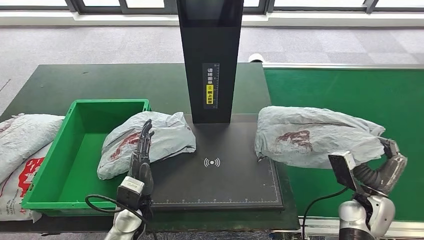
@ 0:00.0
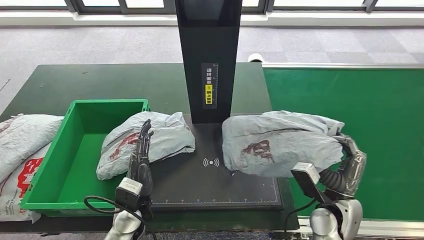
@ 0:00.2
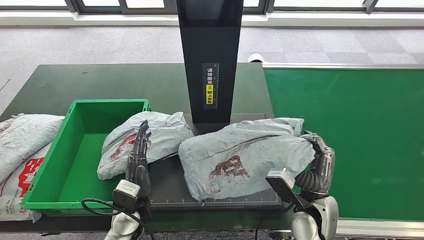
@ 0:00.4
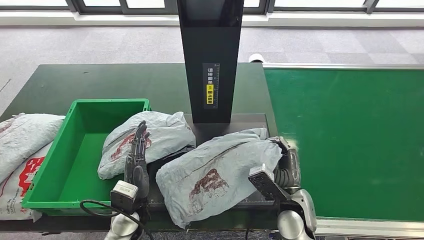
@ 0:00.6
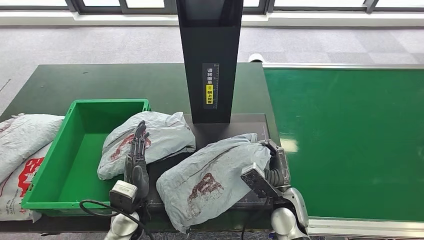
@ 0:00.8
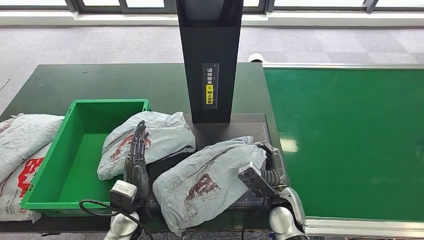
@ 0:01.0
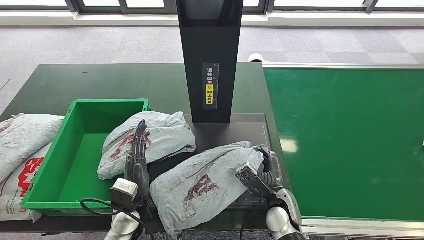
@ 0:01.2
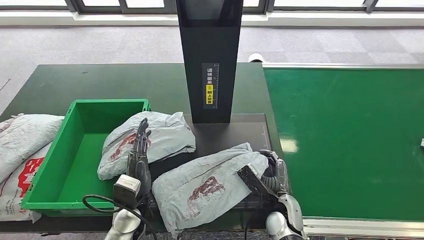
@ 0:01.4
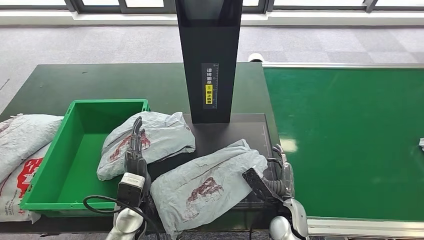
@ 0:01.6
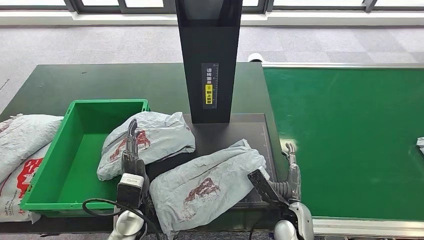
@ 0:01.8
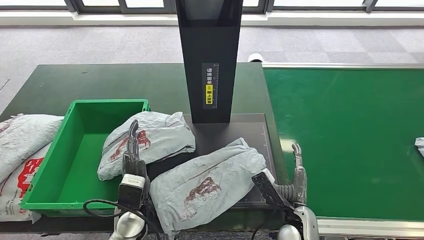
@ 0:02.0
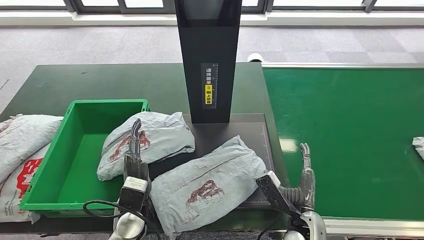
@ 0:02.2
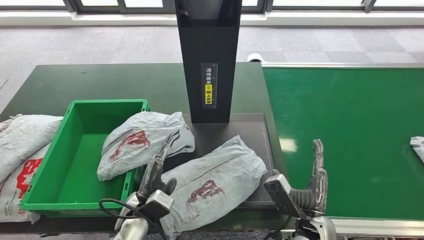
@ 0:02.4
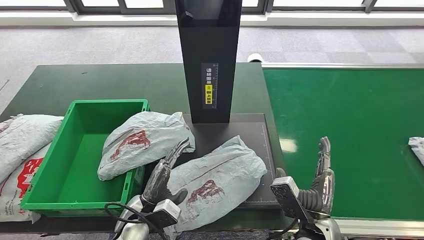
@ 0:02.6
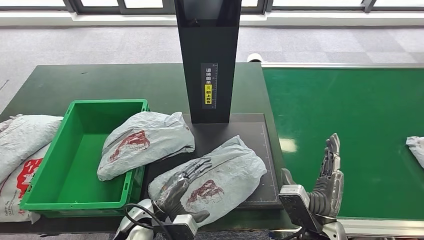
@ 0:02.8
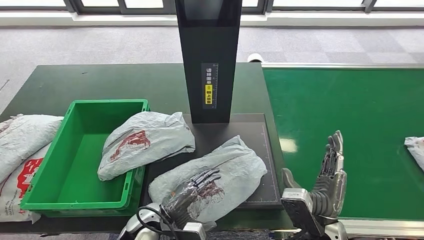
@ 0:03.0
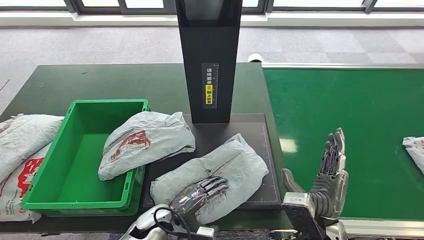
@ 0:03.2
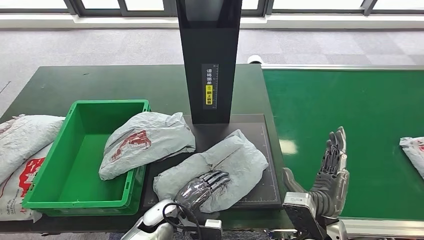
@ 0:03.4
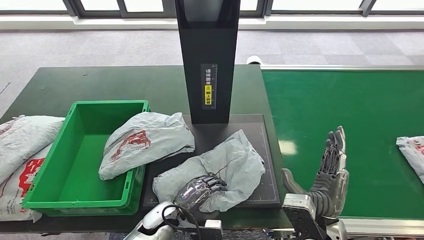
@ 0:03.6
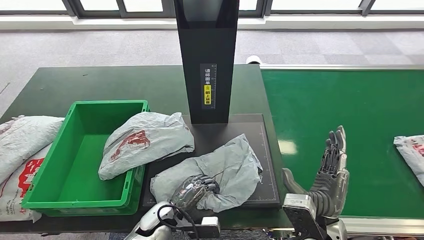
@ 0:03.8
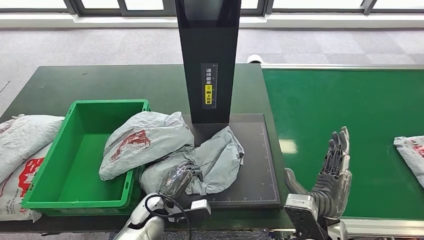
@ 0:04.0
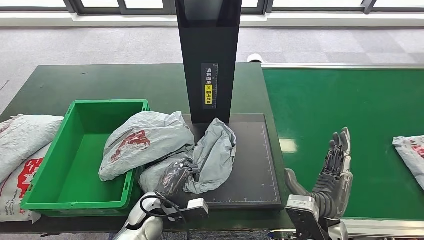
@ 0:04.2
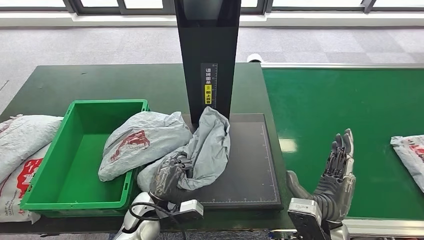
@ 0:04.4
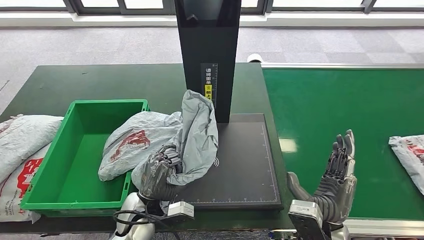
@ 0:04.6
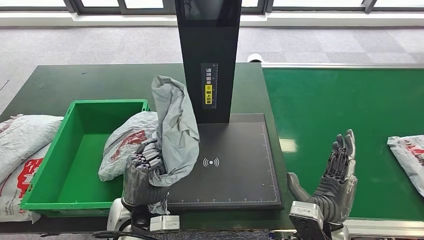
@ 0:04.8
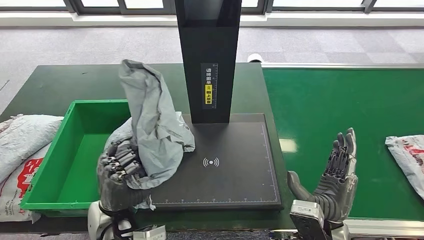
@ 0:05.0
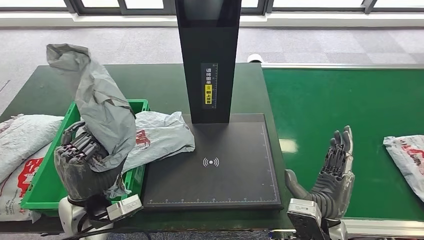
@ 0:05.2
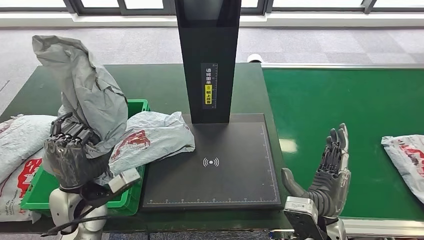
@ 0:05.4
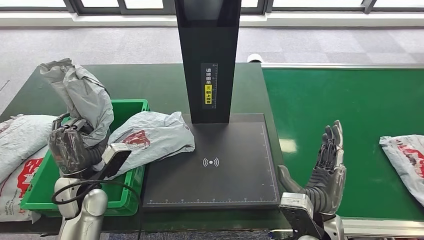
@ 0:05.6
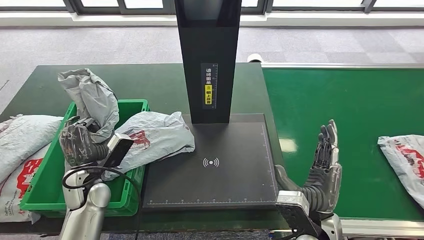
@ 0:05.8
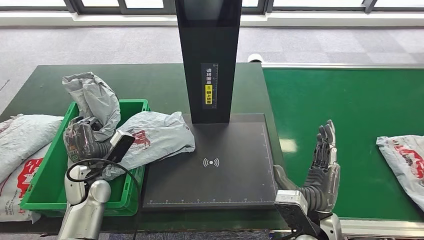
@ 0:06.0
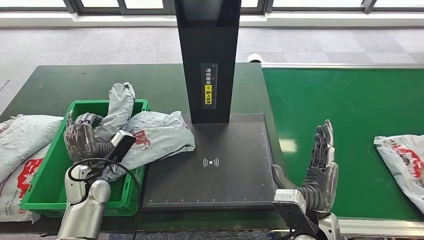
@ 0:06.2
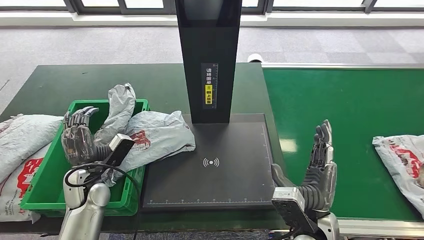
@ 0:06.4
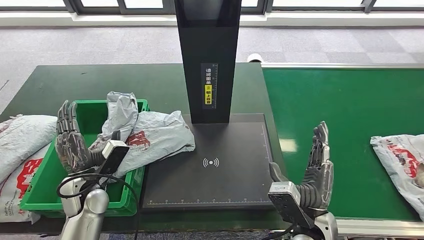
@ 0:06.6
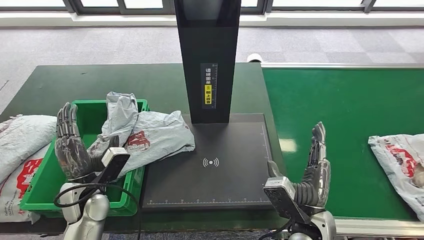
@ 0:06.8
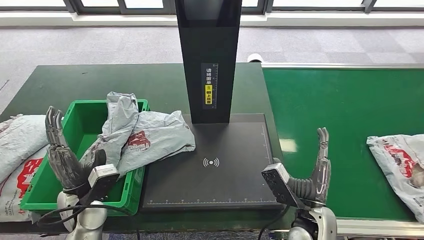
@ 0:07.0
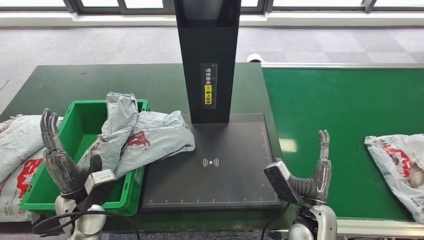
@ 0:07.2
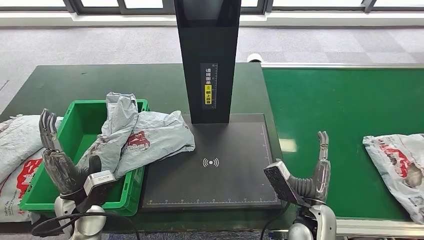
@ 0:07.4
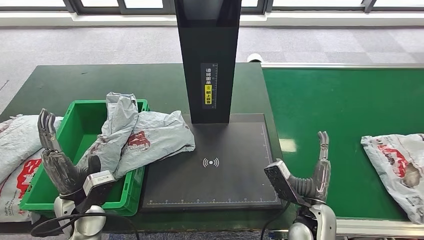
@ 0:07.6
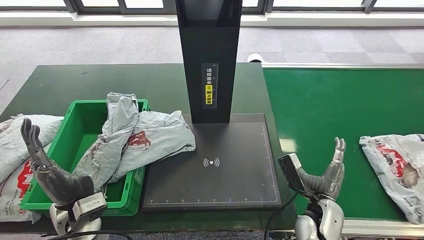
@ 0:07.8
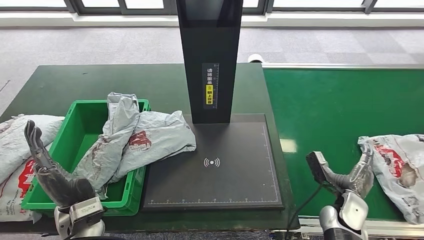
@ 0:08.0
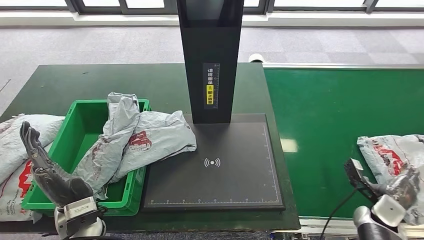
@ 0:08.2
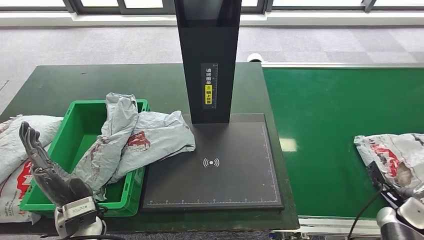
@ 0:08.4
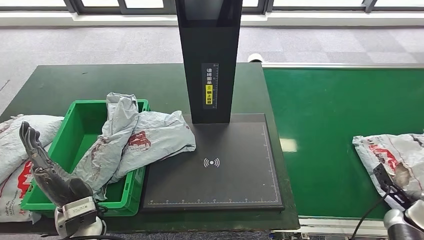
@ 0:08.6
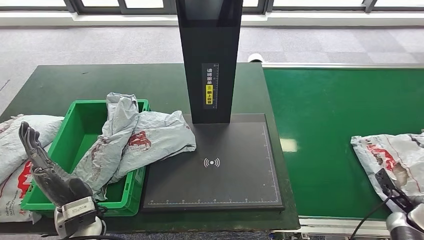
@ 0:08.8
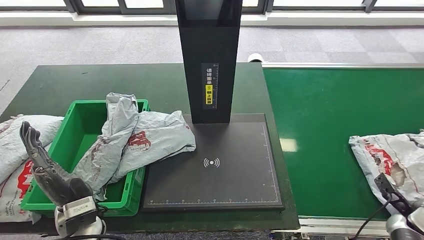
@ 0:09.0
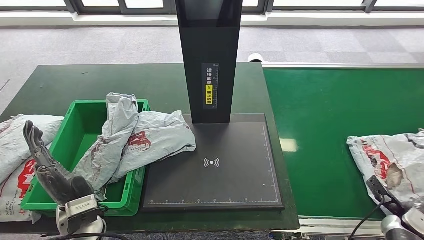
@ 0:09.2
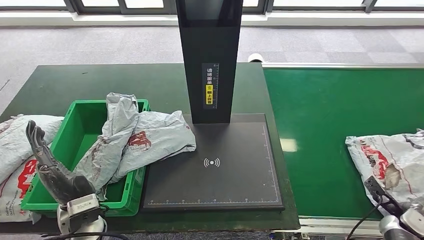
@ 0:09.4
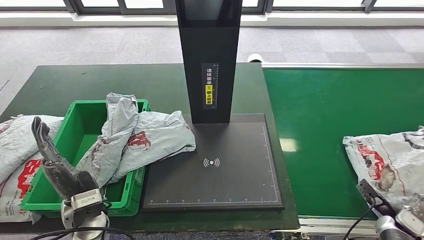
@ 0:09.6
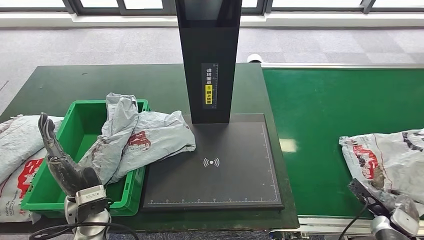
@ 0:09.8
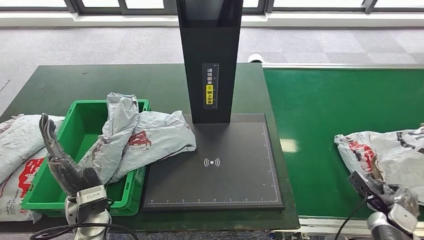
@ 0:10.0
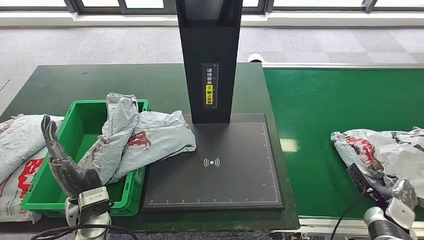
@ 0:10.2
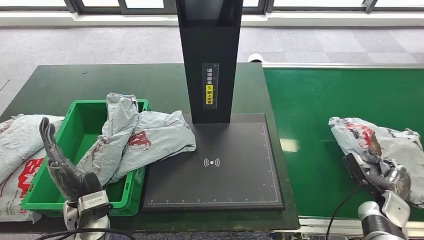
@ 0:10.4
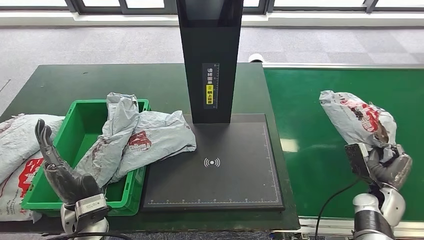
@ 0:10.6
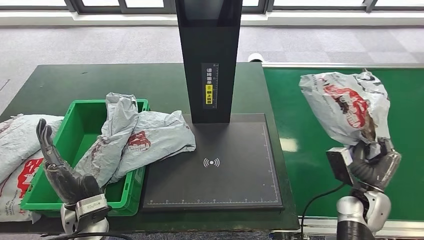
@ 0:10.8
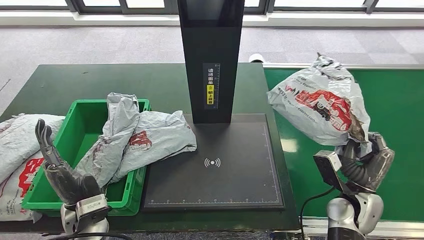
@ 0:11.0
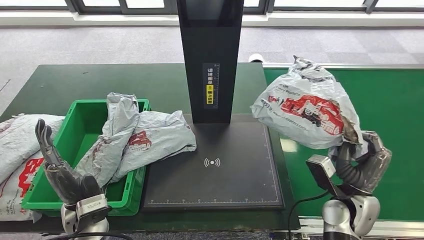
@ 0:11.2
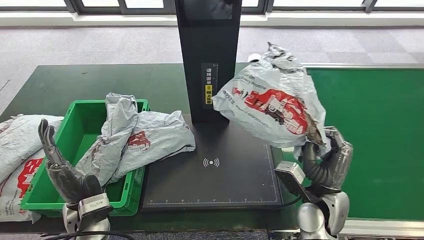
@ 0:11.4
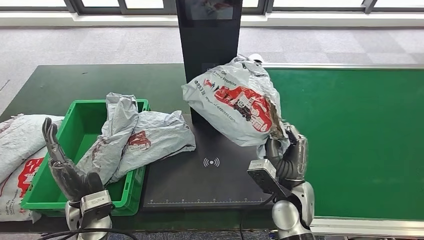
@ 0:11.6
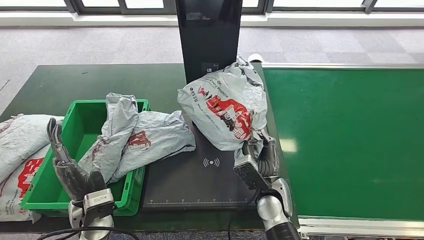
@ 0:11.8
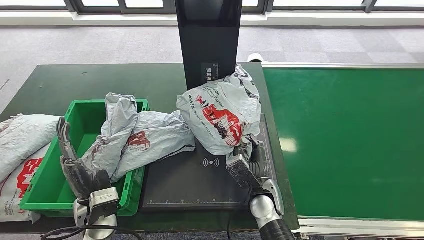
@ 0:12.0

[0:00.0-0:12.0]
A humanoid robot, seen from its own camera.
Step, 0:00.0 to 0:02.4: Place the parcel onto the inbound machine.
Step, 0:02.6 to 0:05.0: Pick up the parcel from the inbound machine.
Step, 0:05.2 to 0:07.6: Place the parcel into the delivery box.
Step, 0:07.8 to 0:11.4: Pick up the parcel from the conveyor belt.
0:01.6 to 0:03.0: The left hand ends up roughly 5 cm from where it was. Meanwhile the right hand travels upward by approximately 10 cm.
0:06.0 to 0:07.6: The right hand shifts by about 5 cm, while the left hand goes approximately 5 cm backward.
0:07.6 to 0:09.0: The right hand travels to the right by approximately 30 cm.
0:09.0 to 0:10.4: The right hand heads to the left, covering approximately 5 cm.

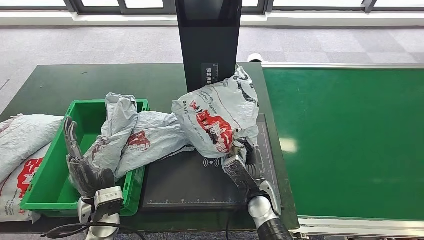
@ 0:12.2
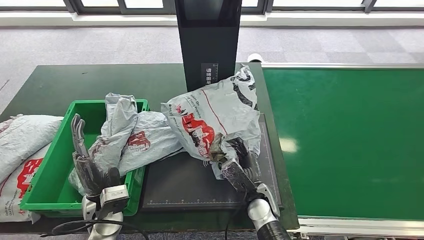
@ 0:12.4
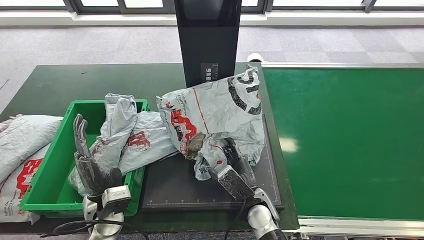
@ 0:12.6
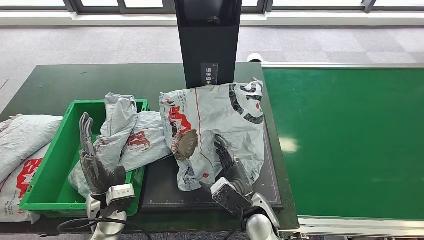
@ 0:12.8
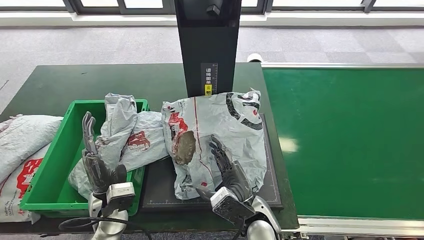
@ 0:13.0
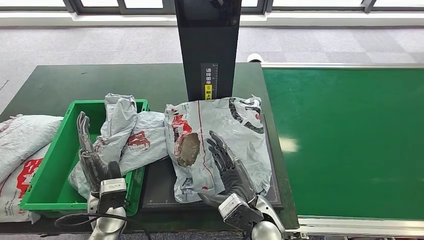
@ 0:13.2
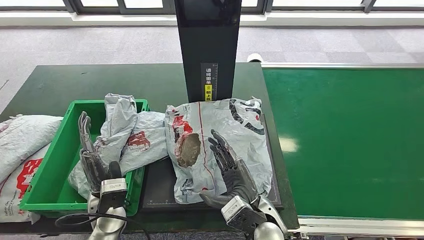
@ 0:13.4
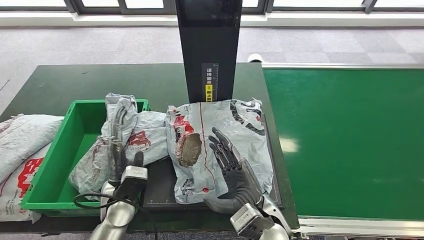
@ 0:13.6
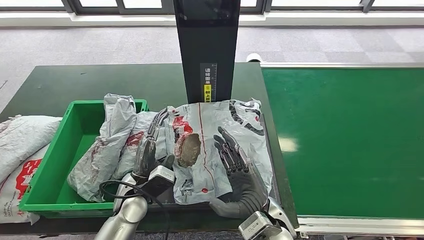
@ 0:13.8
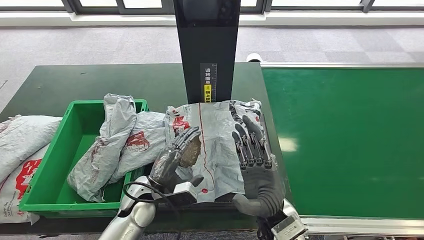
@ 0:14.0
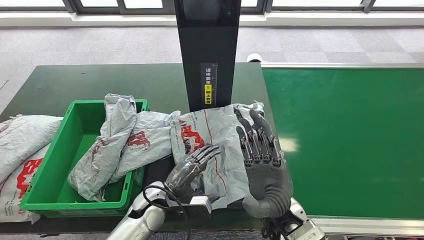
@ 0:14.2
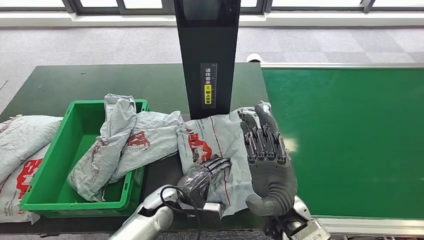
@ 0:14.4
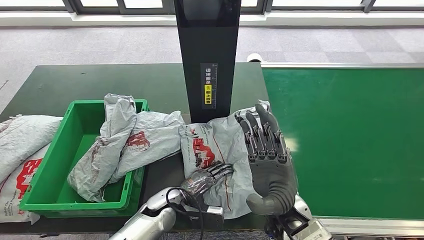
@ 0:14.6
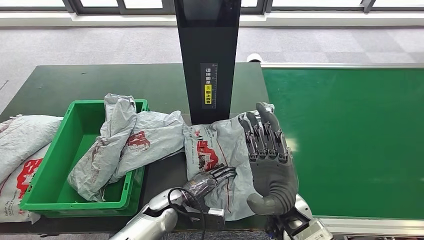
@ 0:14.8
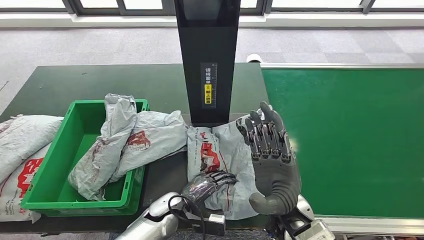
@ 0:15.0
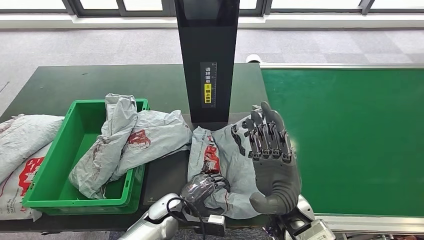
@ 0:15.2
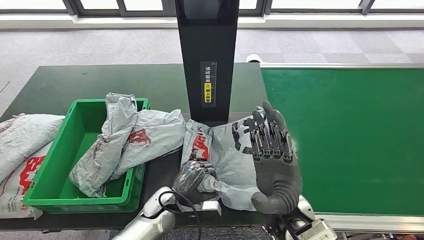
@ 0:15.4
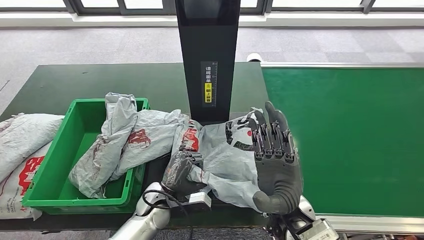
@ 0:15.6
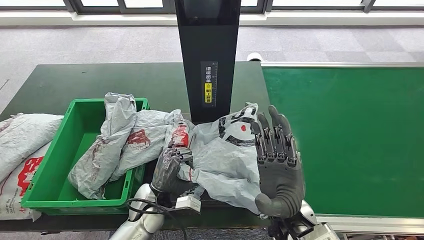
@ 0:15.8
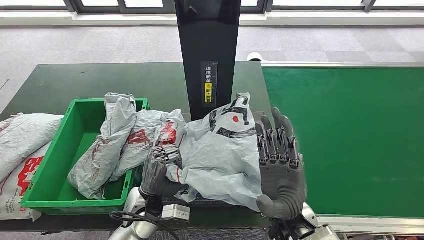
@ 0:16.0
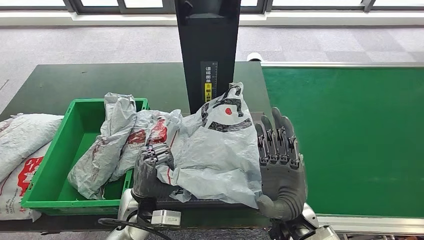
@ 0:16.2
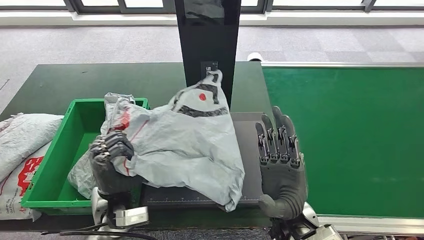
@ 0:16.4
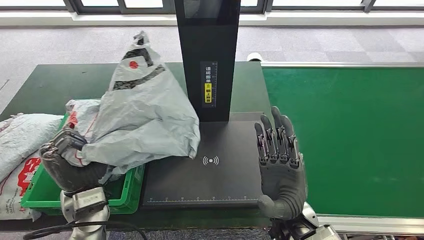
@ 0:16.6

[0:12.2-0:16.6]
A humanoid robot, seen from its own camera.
Step, 0:12.2 to 0:13.8: Place the parcel onto the inbound machine.
Step, 0:14.0 to 0:16.6: Pick up the parcel from the inbound machine.
0:12.2 to 0:13.6: The right hand travels upward by some 10 cm.
